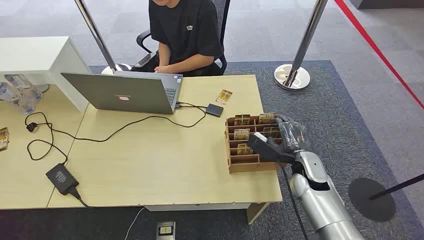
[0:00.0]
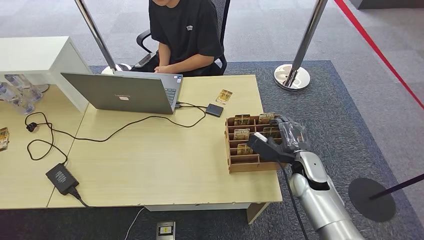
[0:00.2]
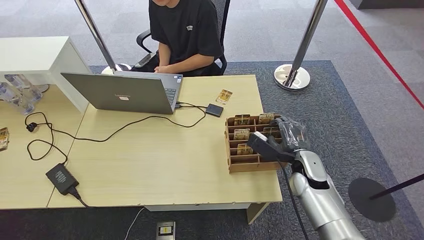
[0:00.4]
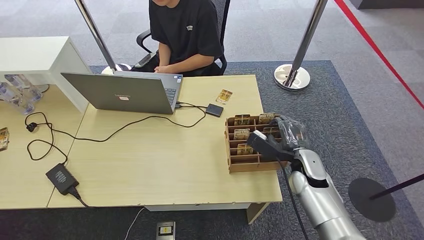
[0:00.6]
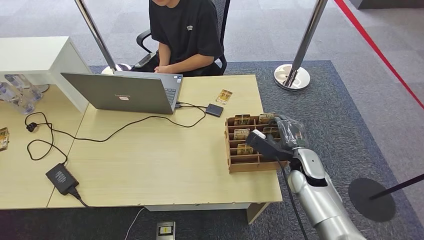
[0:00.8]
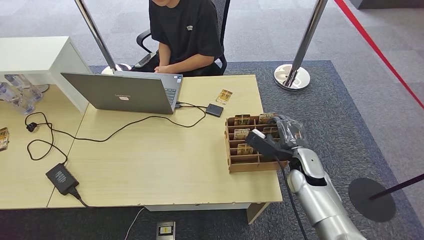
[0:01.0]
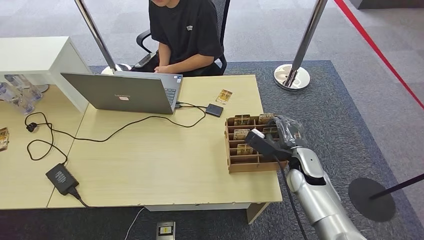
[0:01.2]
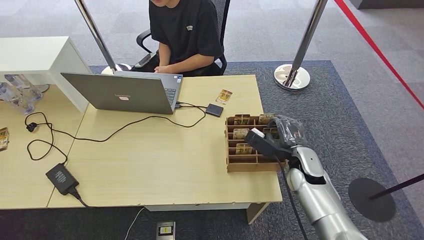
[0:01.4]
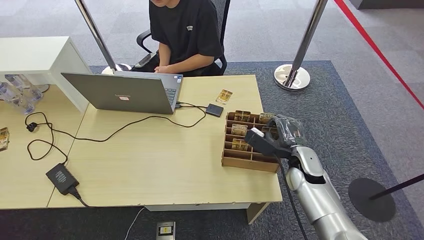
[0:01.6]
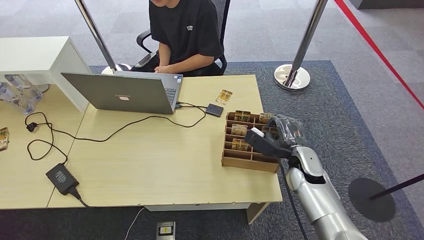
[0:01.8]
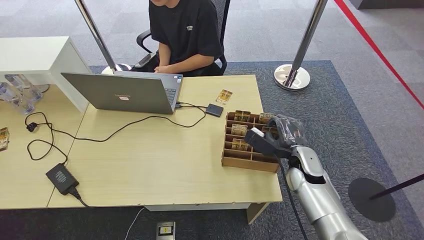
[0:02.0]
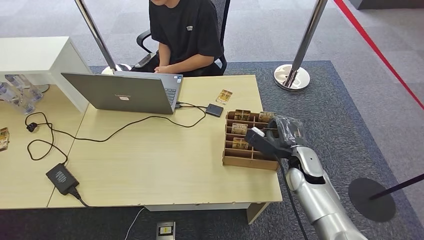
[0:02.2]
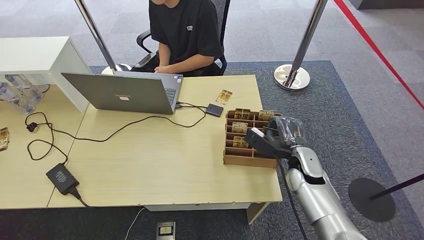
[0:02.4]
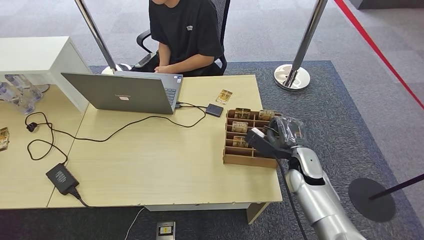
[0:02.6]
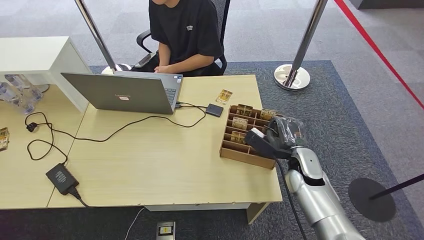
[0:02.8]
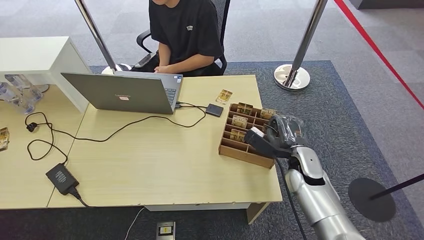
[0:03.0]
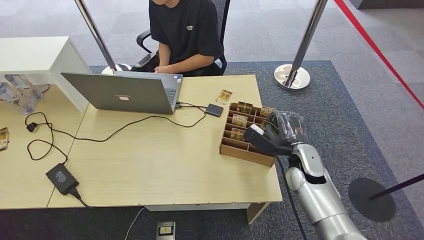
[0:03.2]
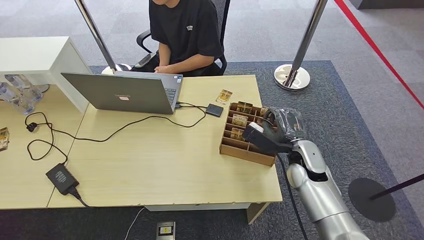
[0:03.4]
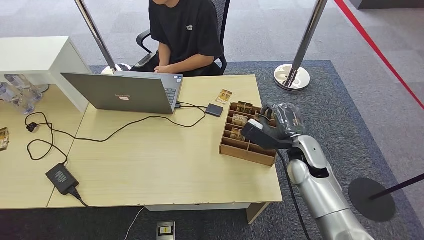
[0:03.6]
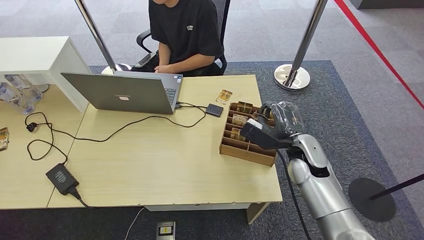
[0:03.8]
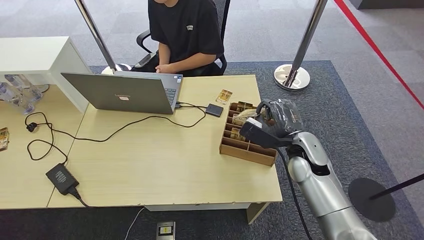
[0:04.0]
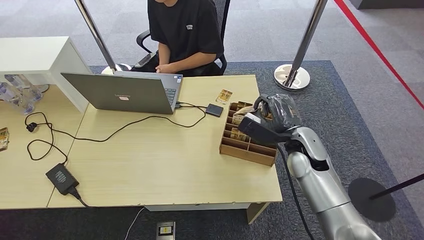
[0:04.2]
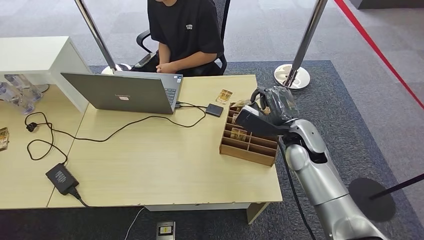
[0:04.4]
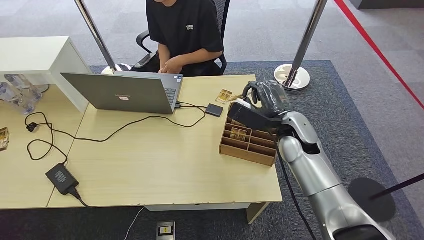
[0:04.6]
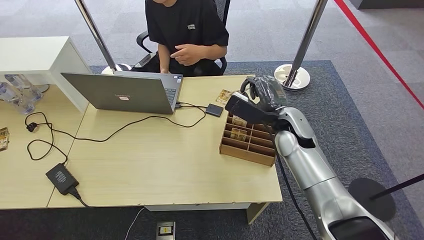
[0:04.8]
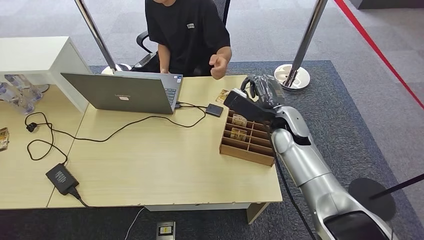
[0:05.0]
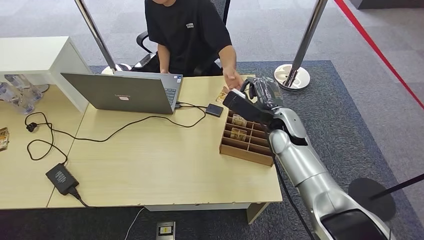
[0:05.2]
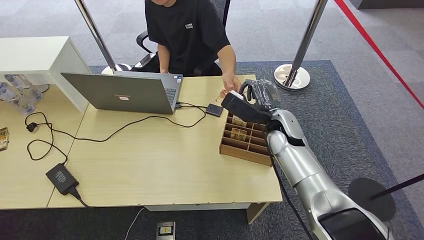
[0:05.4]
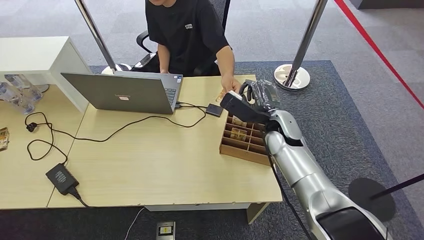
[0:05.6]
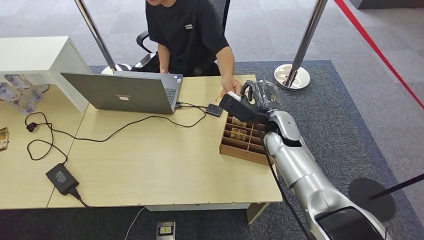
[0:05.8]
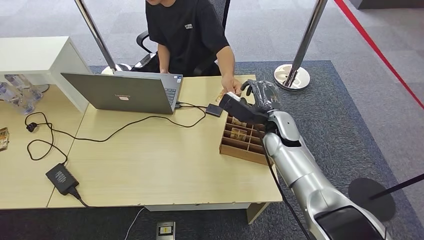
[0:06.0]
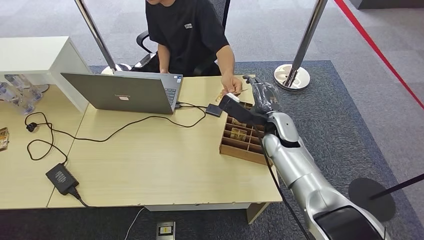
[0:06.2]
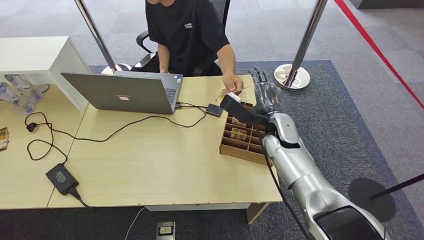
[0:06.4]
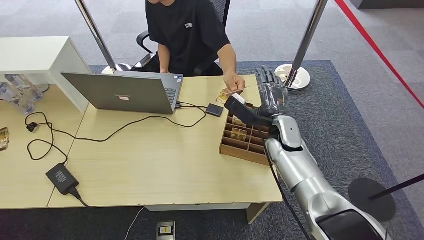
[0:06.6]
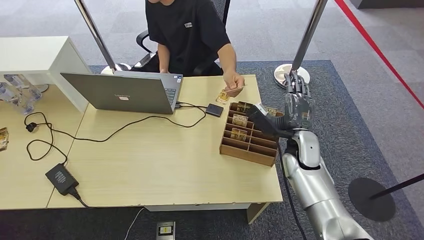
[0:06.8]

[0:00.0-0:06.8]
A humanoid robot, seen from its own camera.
Step, 0:00.0 to 0:04.8: Pick up the key card from the card box.
Step, 0:05.0 to 0:06.8: Hand the key card to the target.
0:01.4 to 0:02.8: The two hands keep their place.
0:02.8 to 0:04.0: The right hand is displaced upward by about 5 cm.
0:04.0 to 0:05.4: The right hand is displaced forward by approximately 5 cm.
0:05.4 to 0:06.8: The right hand shifts by roughly 5 cm.
